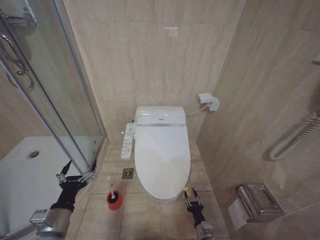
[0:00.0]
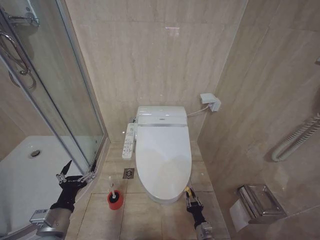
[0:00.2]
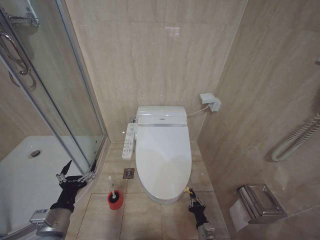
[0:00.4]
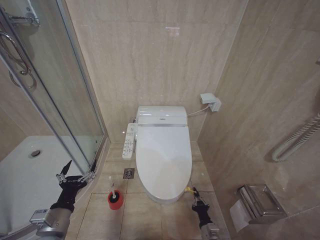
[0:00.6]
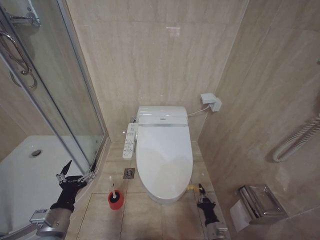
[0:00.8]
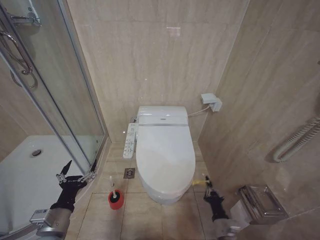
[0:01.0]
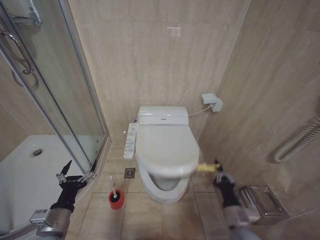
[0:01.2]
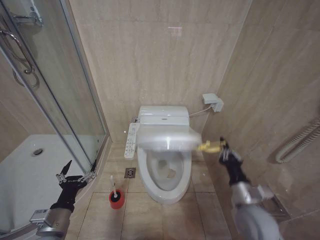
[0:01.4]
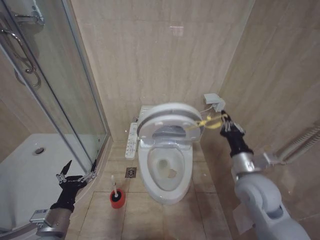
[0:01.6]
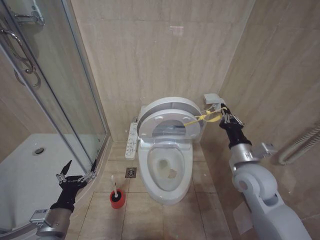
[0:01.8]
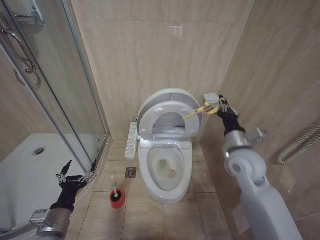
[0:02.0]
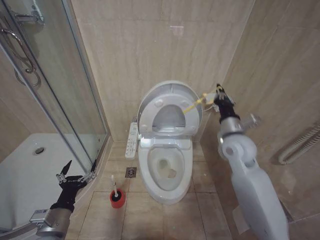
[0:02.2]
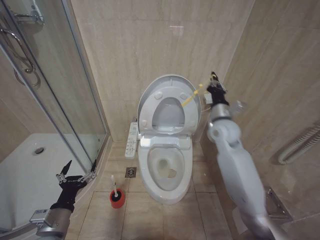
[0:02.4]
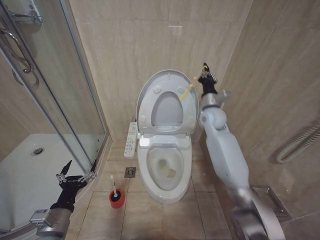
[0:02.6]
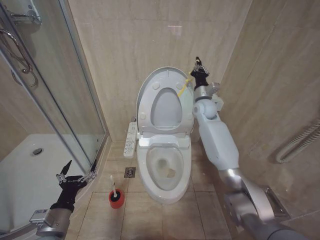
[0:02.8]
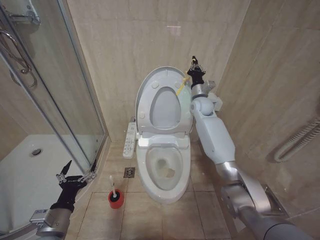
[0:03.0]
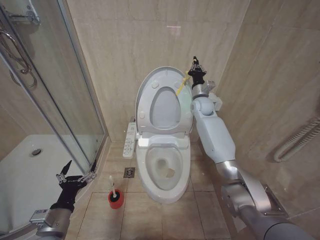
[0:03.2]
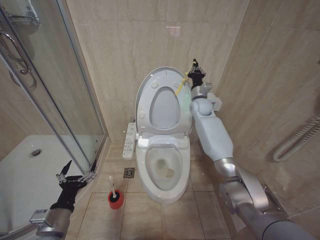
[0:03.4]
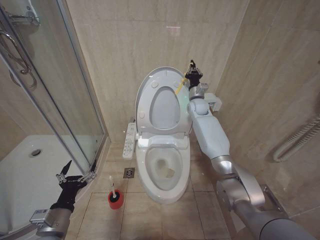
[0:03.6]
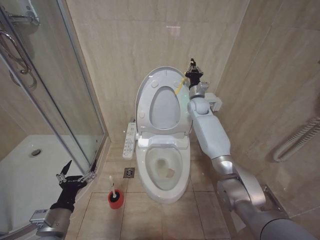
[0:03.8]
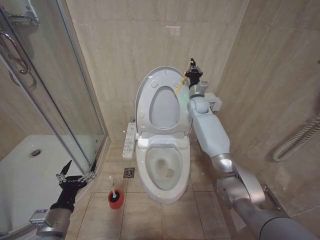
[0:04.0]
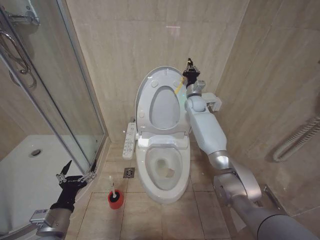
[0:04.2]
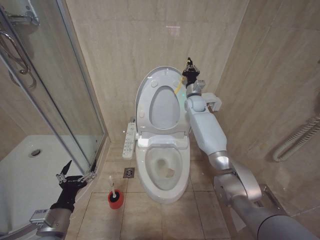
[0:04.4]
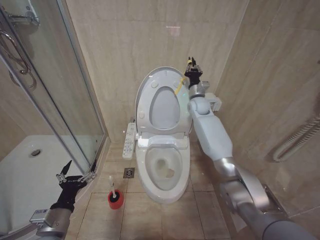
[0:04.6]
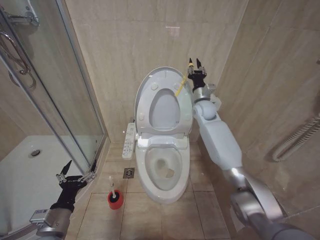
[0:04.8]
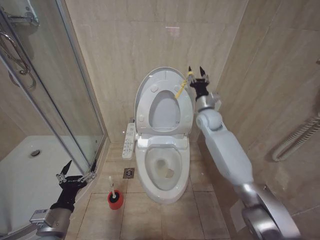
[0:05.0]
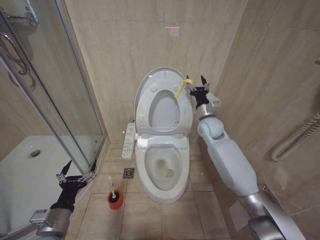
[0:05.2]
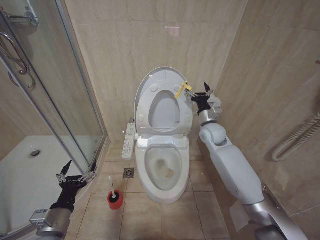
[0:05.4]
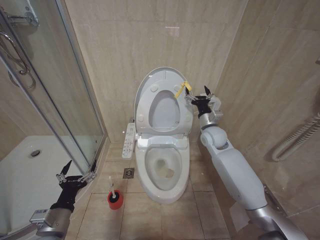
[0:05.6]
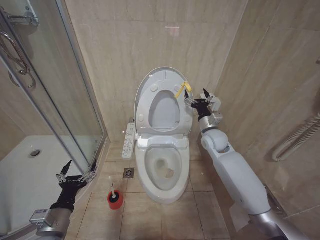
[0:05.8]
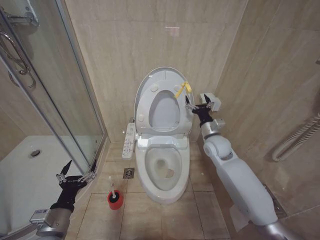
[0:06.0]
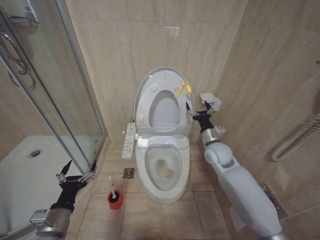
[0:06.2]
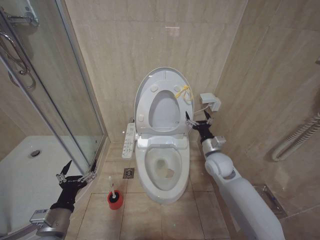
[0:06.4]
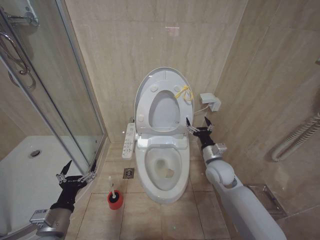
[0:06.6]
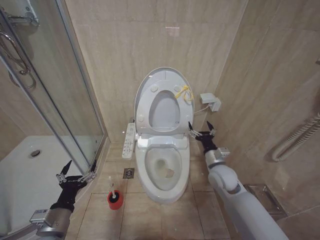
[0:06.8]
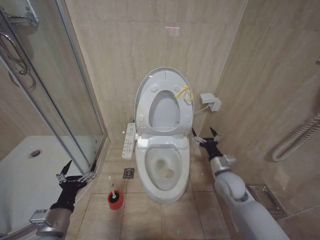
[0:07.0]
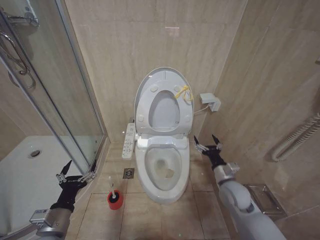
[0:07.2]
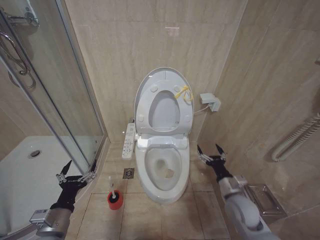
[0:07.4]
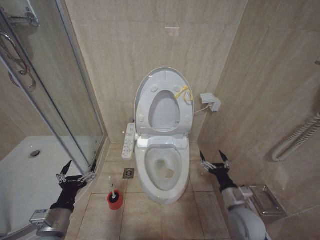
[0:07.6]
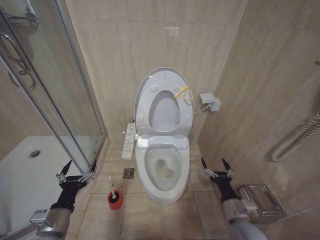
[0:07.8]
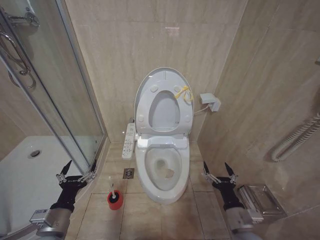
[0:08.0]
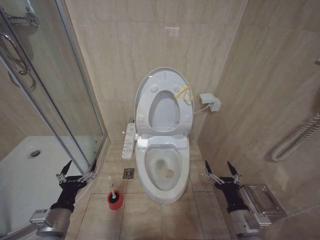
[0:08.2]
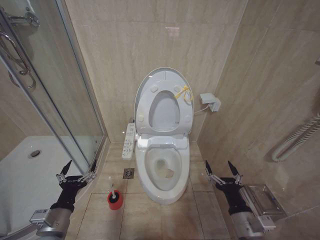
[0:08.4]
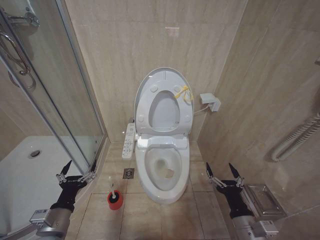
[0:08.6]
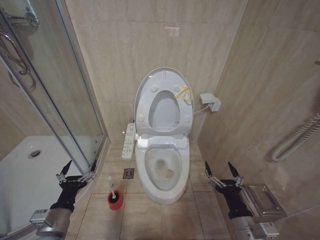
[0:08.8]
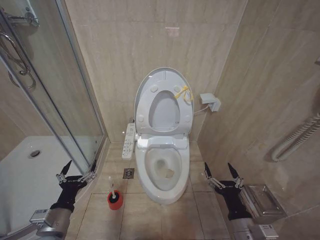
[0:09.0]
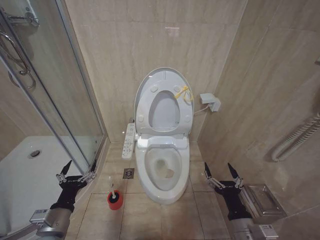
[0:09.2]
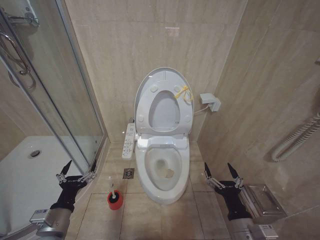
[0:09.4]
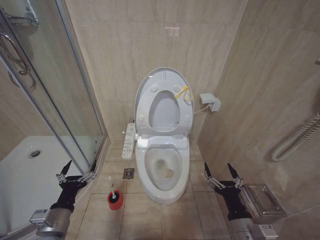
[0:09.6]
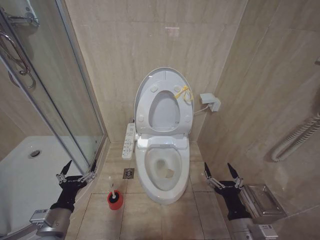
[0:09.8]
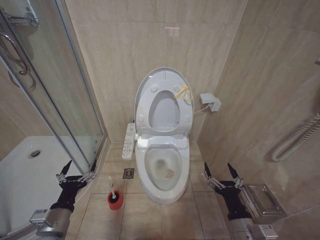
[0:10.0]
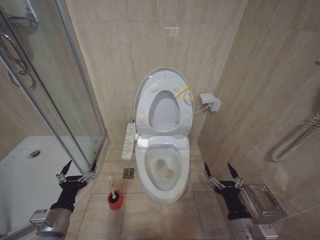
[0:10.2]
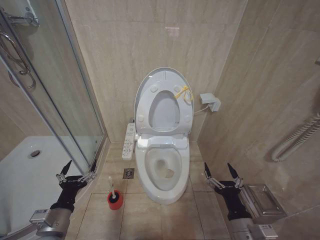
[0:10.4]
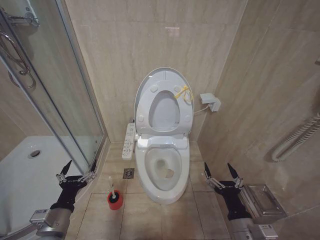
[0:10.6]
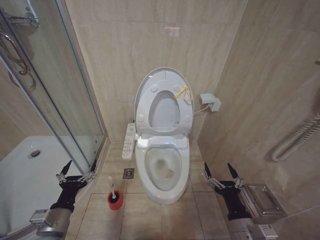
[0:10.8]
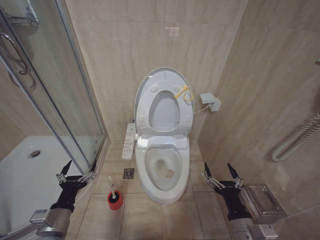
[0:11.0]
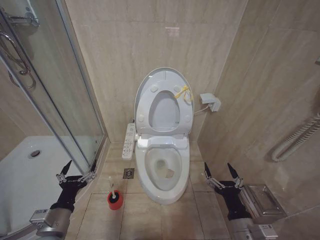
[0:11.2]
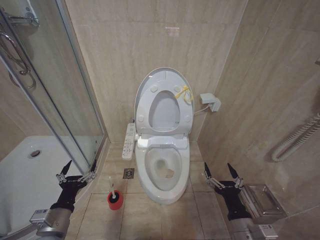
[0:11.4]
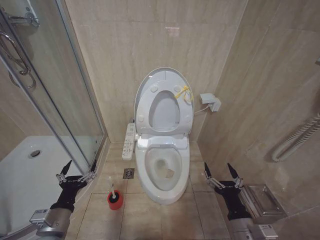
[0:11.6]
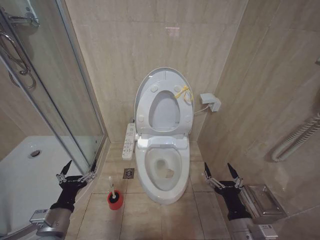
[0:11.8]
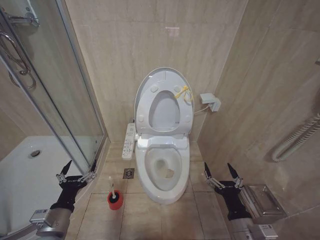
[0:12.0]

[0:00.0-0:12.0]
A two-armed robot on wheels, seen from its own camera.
Task of the whole recording: Open the toilet lid, clean the toilet bowl with a toilet brush, close the toilet lid, and flush.
0:00.0 to 0:01.6: The right gripper shifts some 35 cm upward, and closes its fingers.
0:01.6 to 0:03.0: The right gripper travels forward and upward by roughly 35 cm.
0:03.0 to 0:04.4: The right gripper changes place by approximately 5 cm.
0:04.4 to 0:06.0: The right gripper goes some 20 cm backward and downward, and opens.
0:06.0 to 0:07.6: The right gripper heads backward and downward, covering approximately 25 cm.
0:07.6 to 0:09.0: The right gripper moves backward, roughly 10 cm.
0:09.0 to 0:12.0: Both grippers stay put.

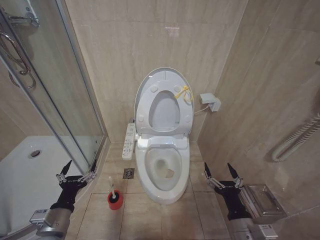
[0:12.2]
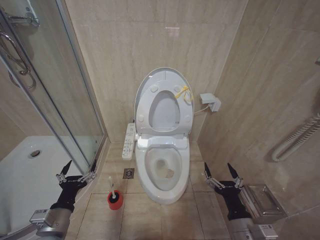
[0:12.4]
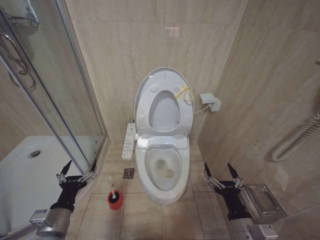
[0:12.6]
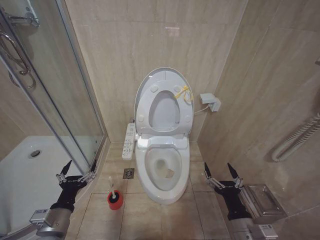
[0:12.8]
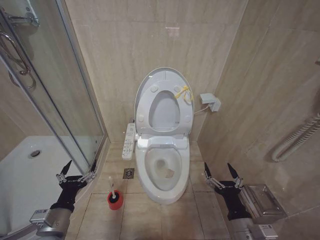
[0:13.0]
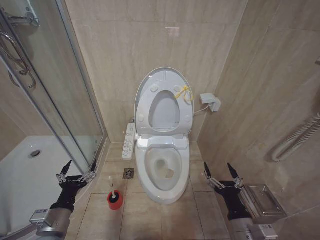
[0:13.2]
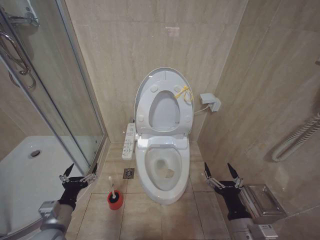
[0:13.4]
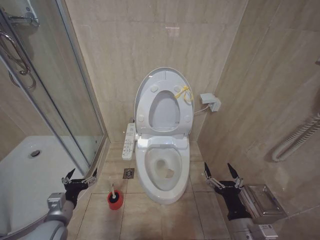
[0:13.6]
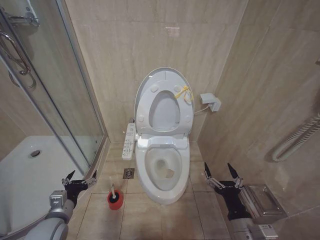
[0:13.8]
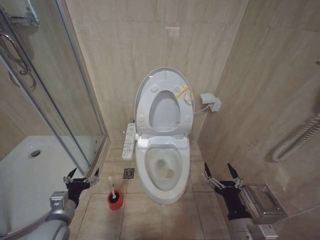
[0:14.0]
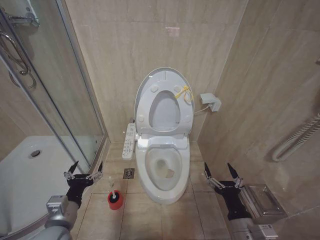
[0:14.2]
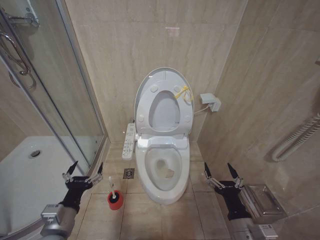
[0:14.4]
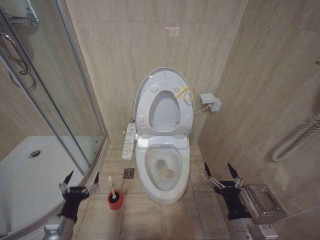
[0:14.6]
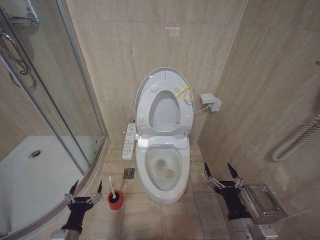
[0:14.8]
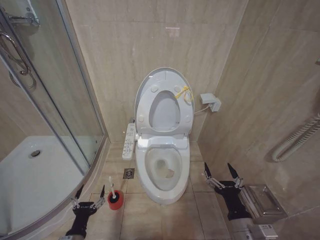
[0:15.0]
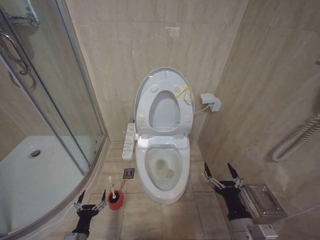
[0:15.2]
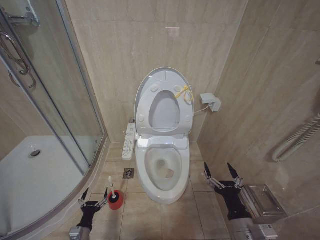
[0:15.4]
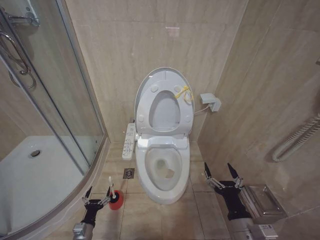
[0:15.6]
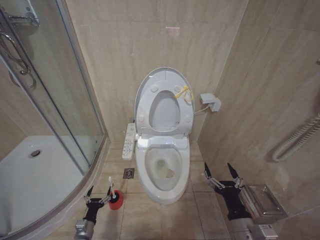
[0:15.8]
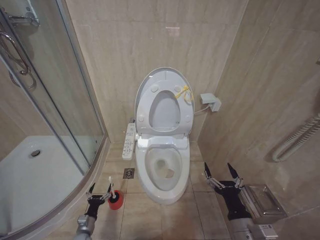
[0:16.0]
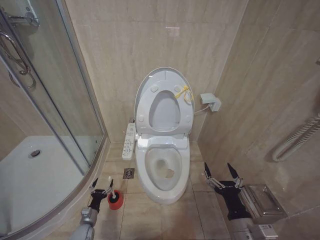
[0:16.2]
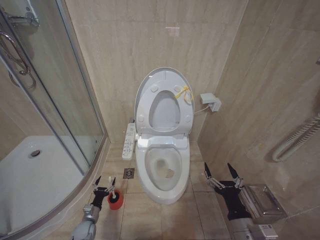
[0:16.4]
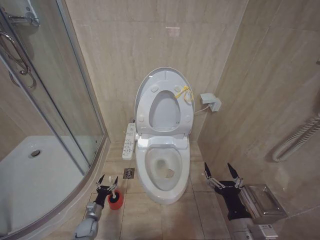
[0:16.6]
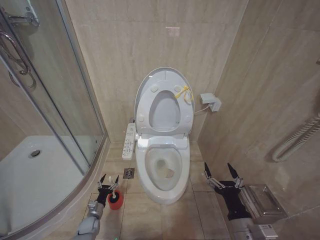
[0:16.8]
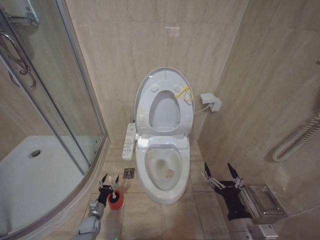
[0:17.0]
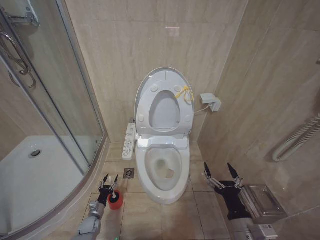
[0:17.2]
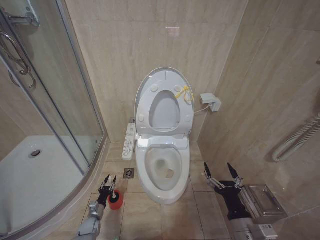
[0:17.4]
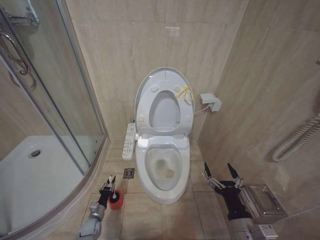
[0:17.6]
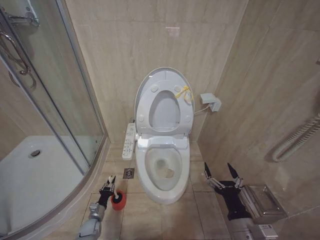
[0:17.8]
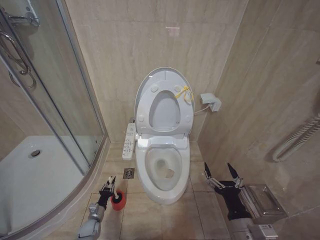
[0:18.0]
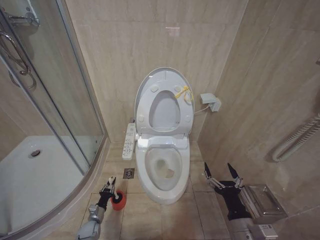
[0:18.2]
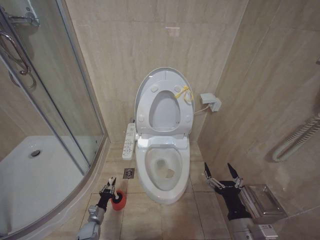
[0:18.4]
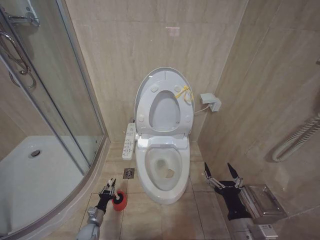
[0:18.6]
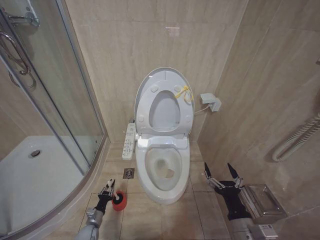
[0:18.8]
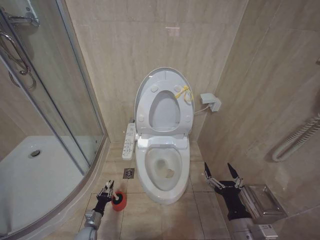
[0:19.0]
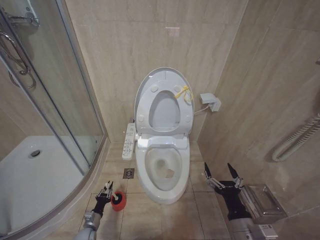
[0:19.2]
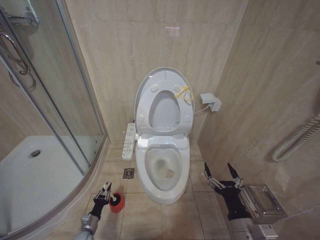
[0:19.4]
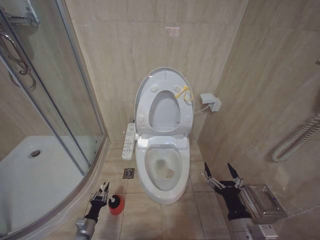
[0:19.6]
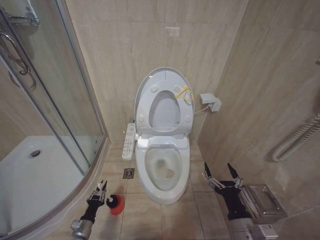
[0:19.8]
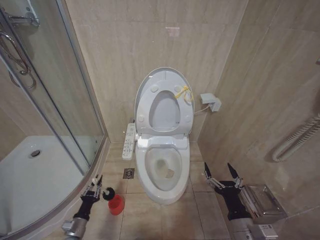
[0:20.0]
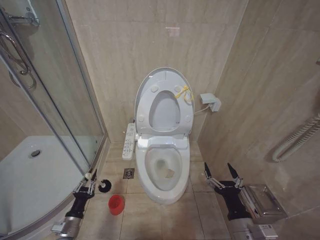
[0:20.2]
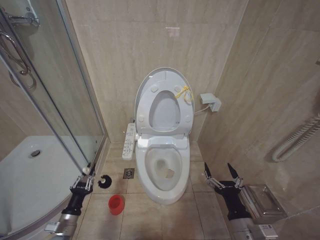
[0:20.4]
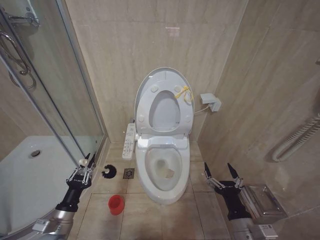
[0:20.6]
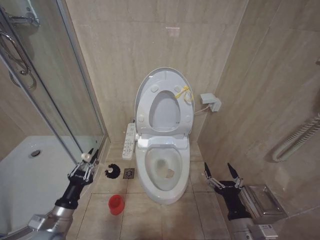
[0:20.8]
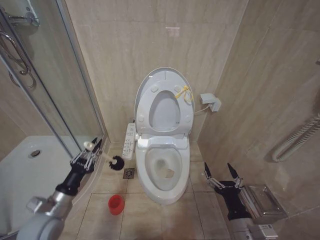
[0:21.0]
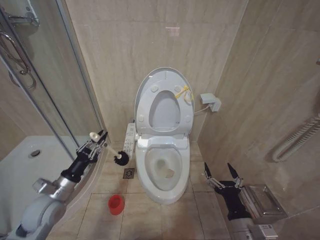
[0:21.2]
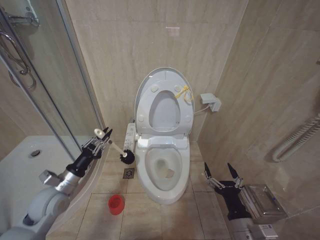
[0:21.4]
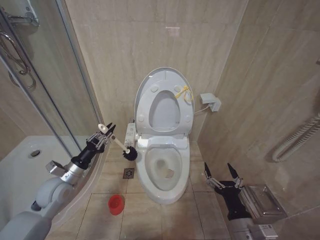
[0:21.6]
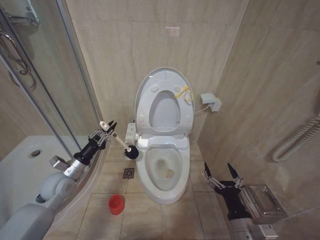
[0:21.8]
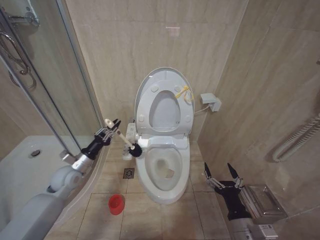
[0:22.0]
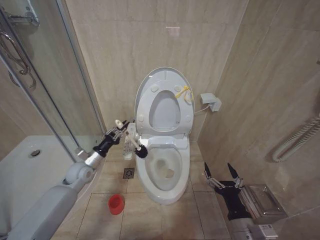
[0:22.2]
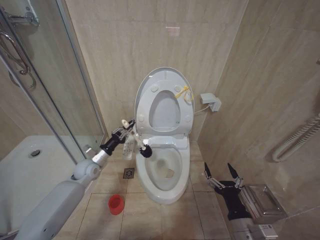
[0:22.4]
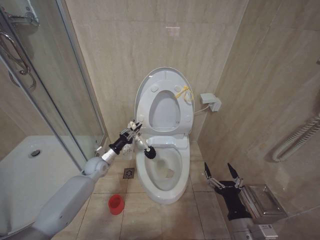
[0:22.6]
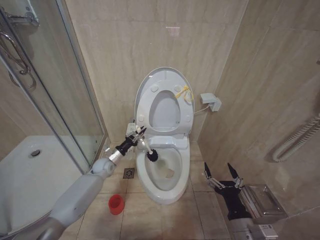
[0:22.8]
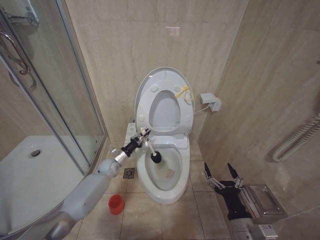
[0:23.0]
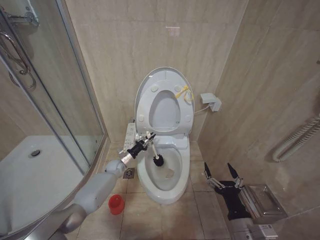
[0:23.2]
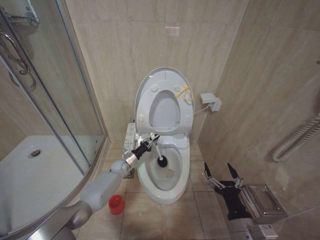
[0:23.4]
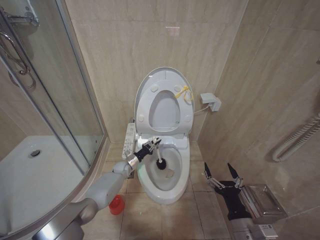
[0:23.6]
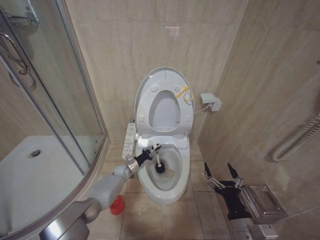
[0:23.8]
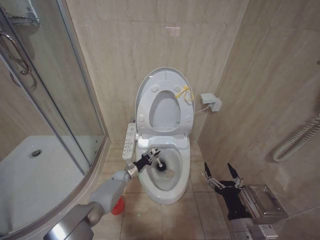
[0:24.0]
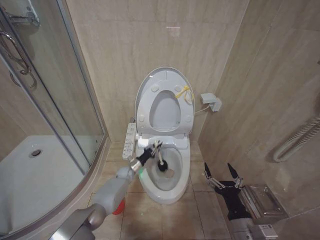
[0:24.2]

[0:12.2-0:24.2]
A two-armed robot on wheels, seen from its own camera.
Task of the whole recording: Open the toilet lid, clean the toilet bowl with a toilet brush, close the toilet lid, and flush.
0:12.2 to 0:13.8: The left gripper changes place by about 5 cm.
0:13.8 to 0:15.2: The left gripper travels downward and backward by about 15 cm.
0:15.2 to 0:16.6: The left gripper is displaced forward and downward by approximately 20 cm.
0:16.6 to 0:18.2: The left gripper closes.
0:18.2 to 0:19.8: The left gripper travels backward and upward by some 10 cm.
0:19.8 to 0:21.2: The left gripper travels upward by about 30 cm.
0:21.2 to 0:22.6: The left gripper is displaced forward by about 20 cm.
0:22.6 to 0:24.2: The left gripper shifts about 20 cm downward and to the right.
